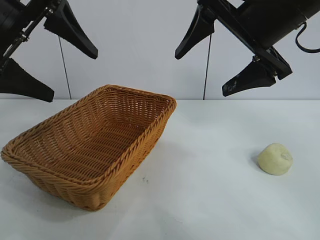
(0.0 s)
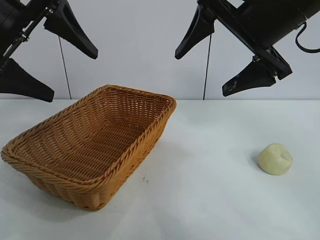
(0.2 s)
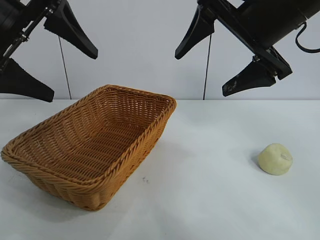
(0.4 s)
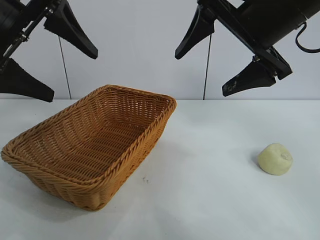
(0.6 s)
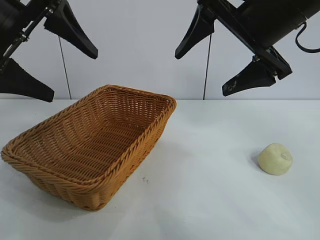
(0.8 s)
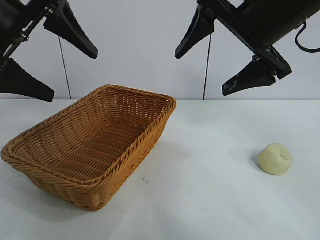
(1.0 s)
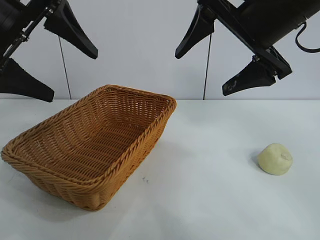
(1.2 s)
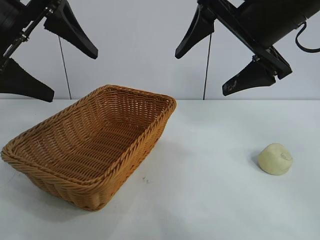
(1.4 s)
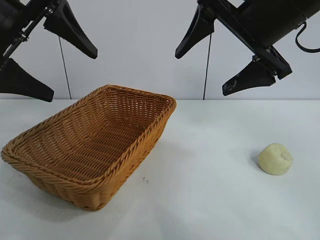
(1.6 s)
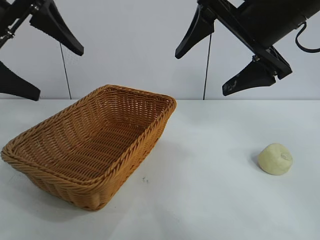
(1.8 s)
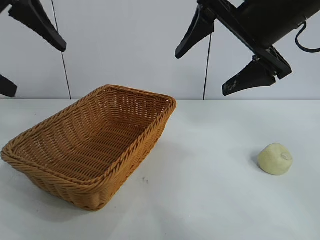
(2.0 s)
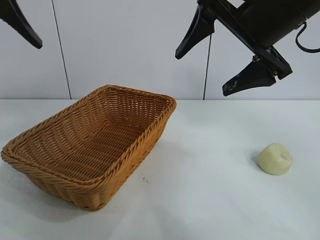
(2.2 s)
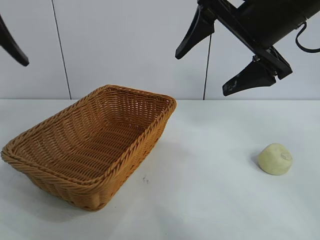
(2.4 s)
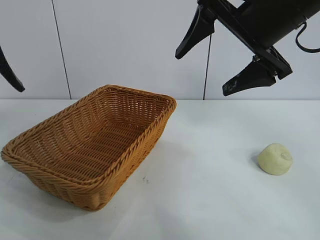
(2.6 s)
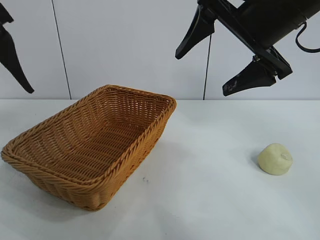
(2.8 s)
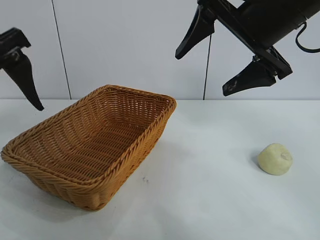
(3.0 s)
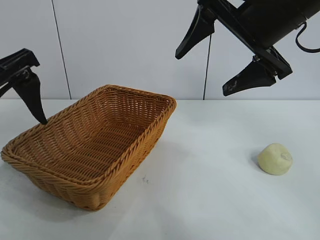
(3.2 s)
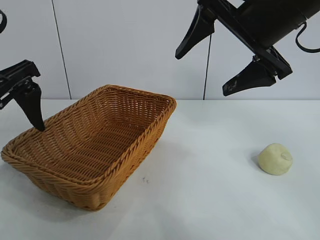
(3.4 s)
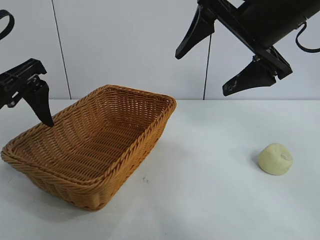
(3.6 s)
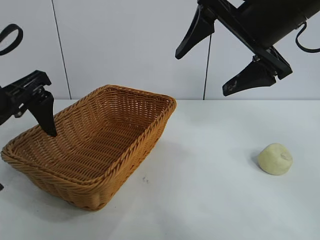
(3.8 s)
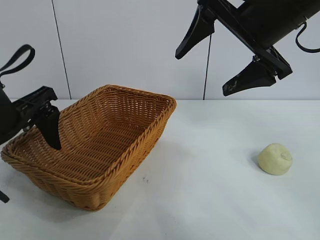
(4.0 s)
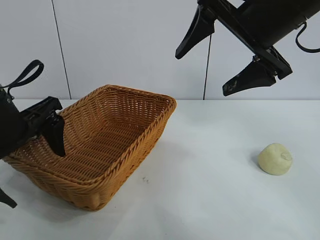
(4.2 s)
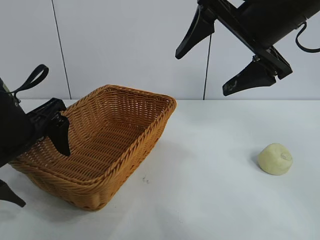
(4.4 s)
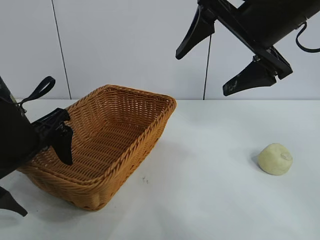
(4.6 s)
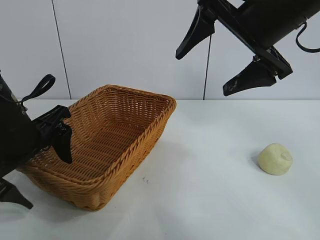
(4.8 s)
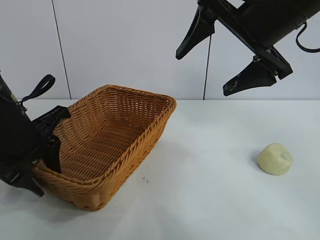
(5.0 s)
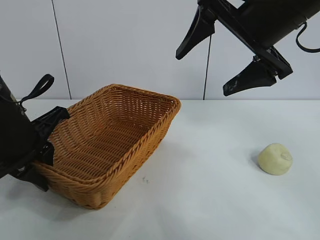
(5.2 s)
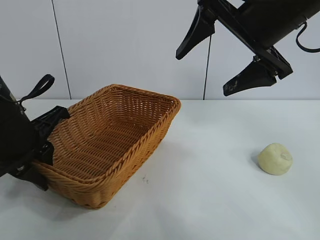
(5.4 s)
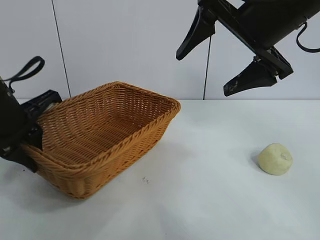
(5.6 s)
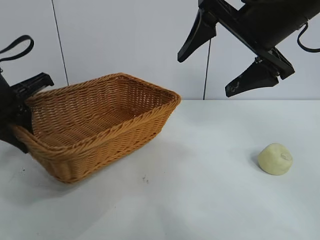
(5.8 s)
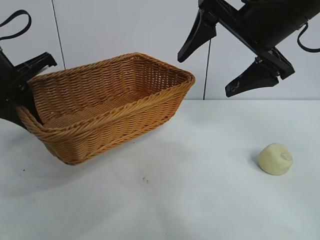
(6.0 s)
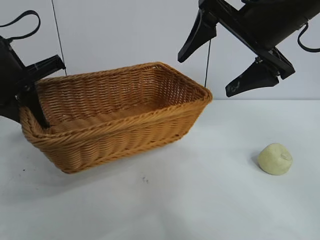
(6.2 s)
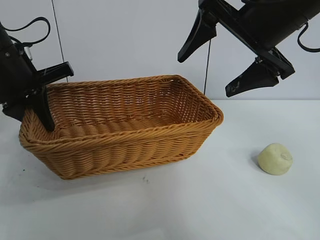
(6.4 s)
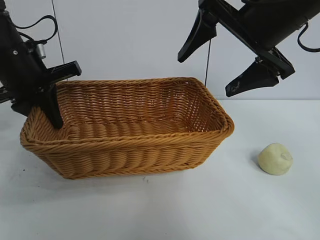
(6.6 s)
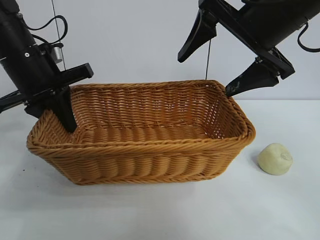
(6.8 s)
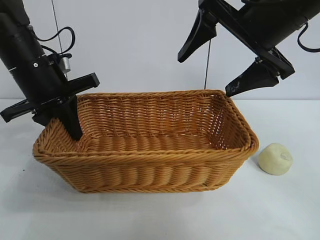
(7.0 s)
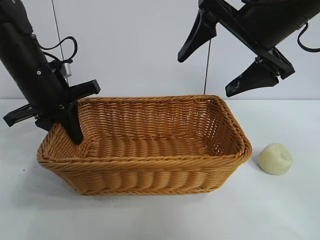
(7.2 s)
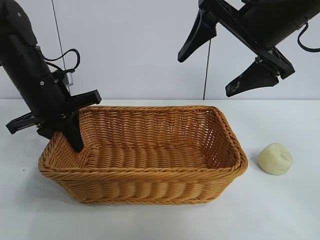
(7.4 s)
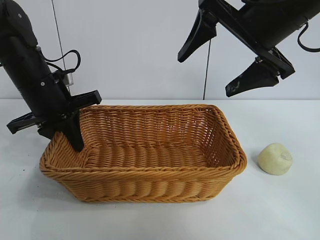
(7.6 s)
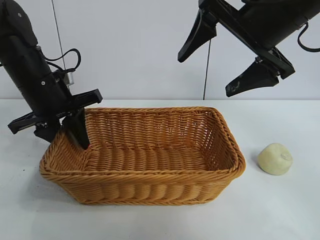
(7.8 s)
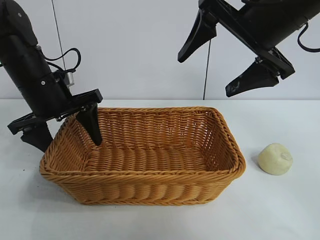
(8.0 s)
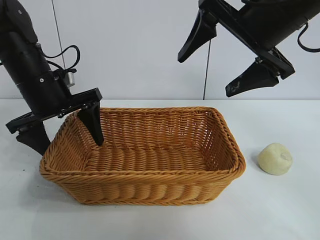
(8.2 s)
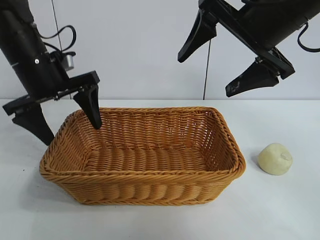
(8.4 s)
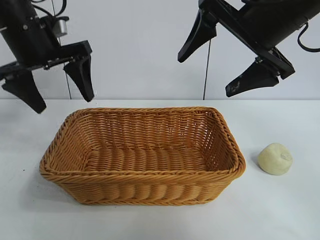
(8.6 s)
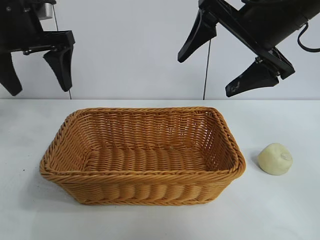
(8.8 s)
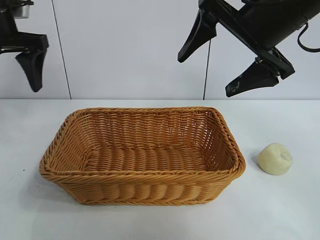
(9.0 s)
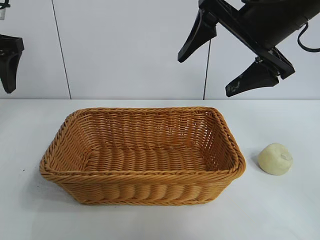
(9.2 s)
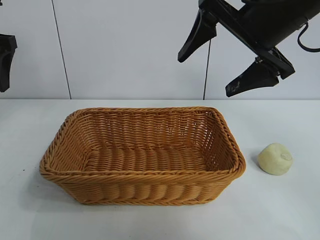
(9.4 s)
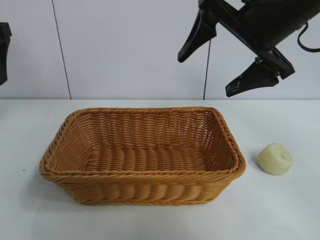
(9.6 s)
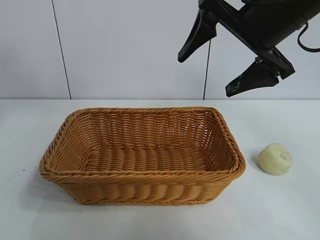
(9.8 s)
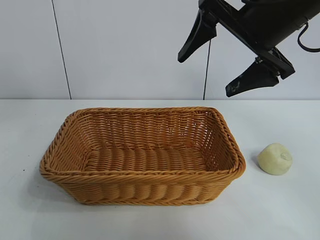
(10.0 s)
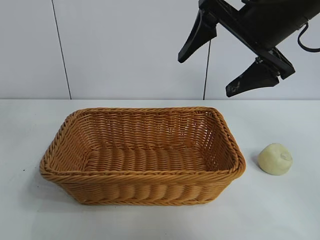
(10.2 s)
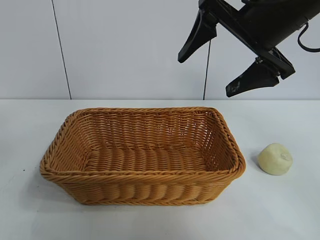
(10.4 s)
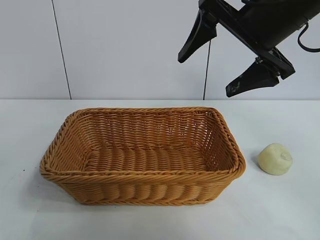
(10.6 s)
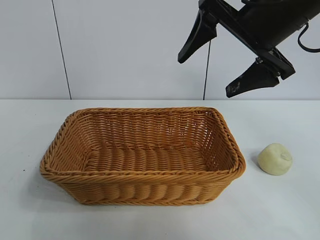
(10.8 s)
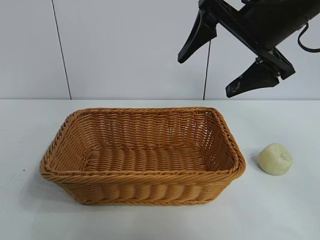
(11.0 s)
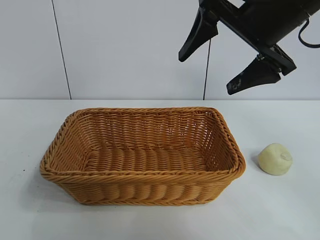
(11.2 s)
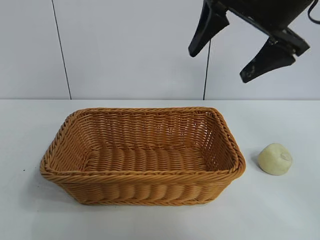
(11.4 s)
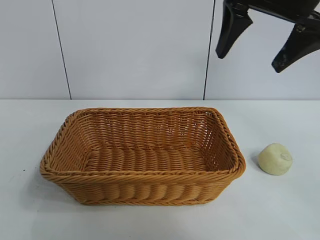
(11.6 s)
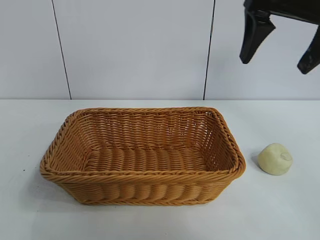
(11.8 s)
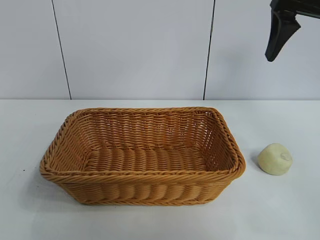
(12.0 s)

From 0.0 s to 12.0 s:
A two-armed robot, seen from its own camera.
Task of the whole recording: pick up the egg yolk pastry and put it into the basket.
Step, from 1.6 s to 5.0 s: Grasp the basket with left gripper.
Step, from 5.4 s to 7.8 s: Place the basket in the center of view with left gripper.

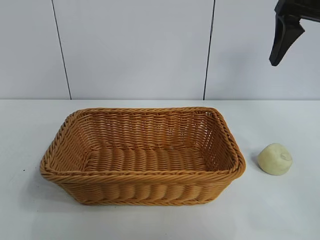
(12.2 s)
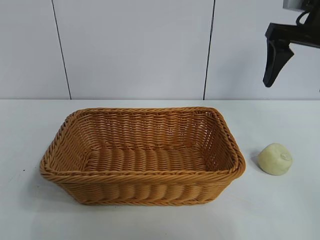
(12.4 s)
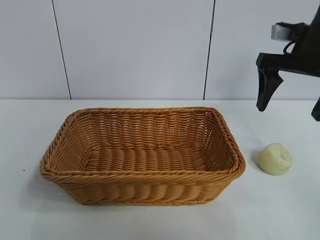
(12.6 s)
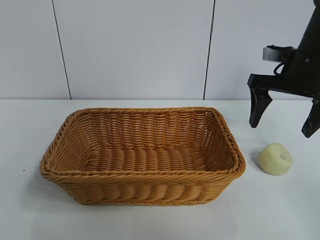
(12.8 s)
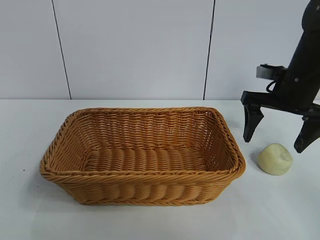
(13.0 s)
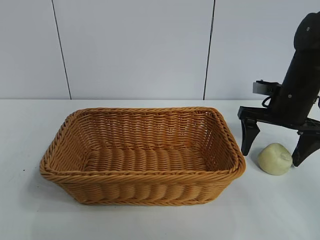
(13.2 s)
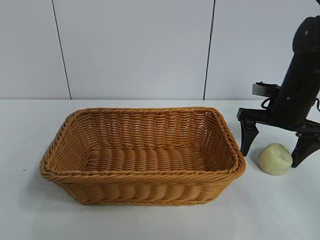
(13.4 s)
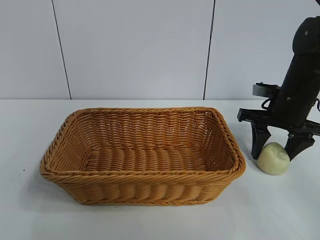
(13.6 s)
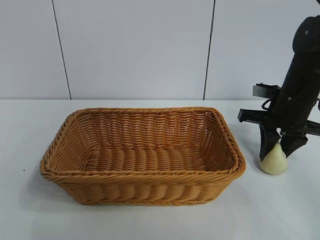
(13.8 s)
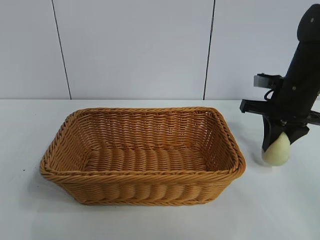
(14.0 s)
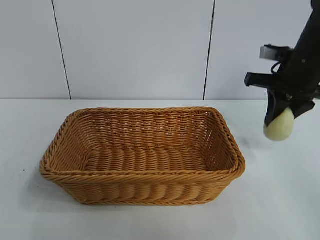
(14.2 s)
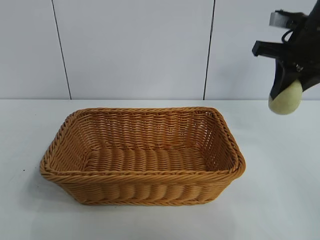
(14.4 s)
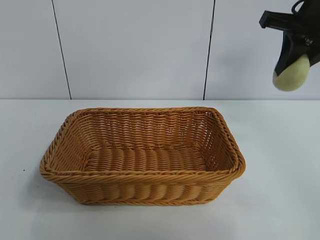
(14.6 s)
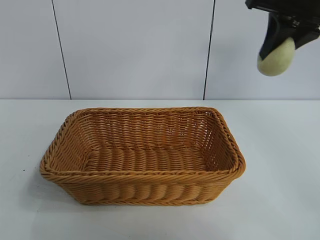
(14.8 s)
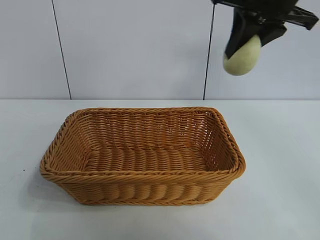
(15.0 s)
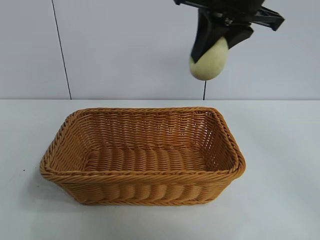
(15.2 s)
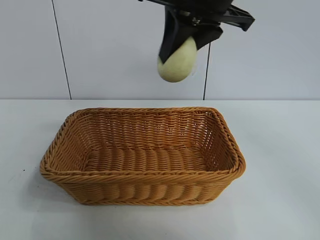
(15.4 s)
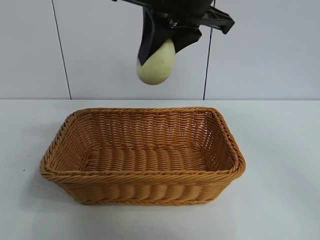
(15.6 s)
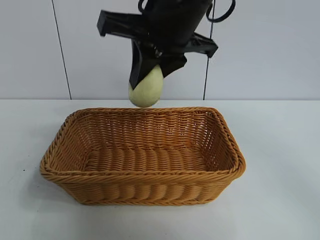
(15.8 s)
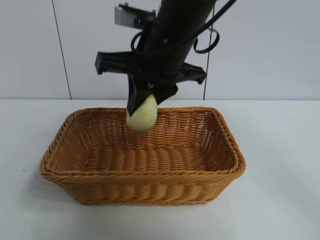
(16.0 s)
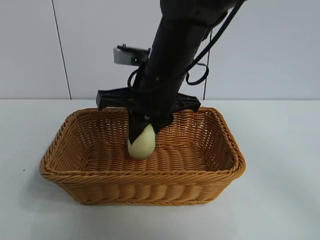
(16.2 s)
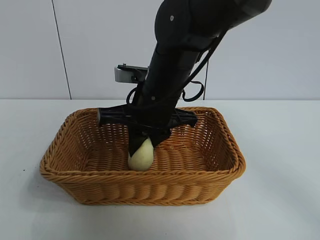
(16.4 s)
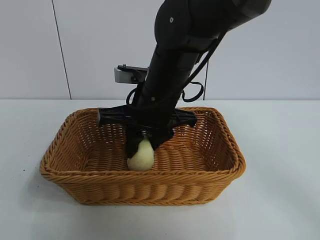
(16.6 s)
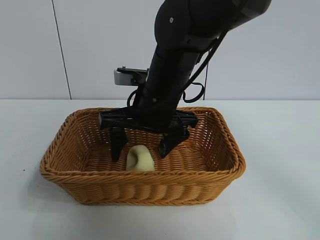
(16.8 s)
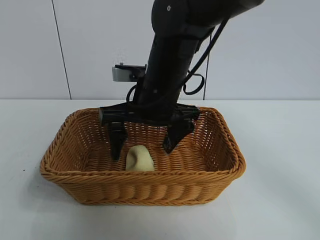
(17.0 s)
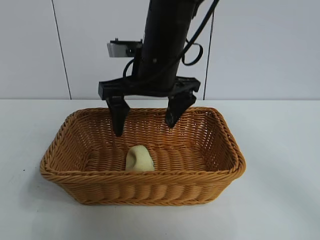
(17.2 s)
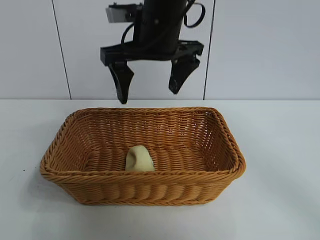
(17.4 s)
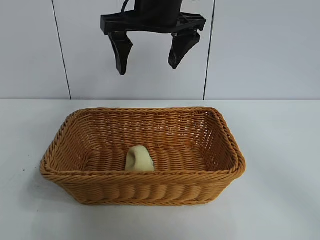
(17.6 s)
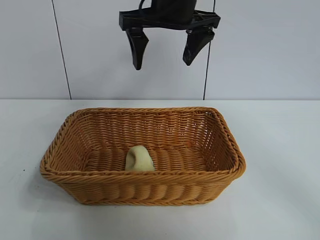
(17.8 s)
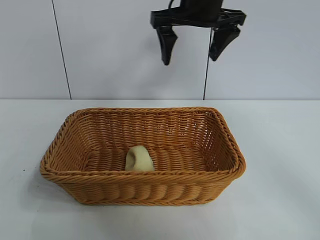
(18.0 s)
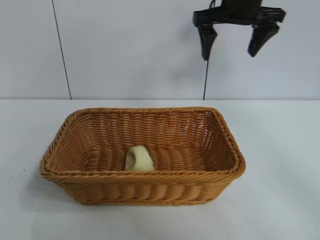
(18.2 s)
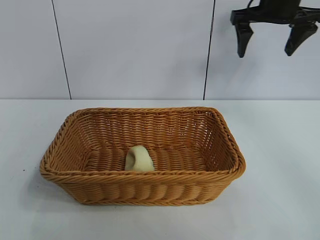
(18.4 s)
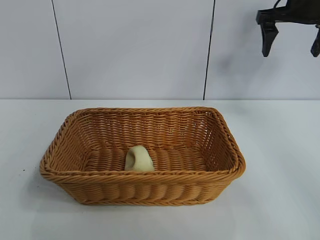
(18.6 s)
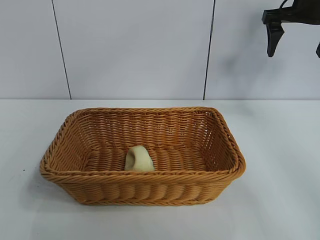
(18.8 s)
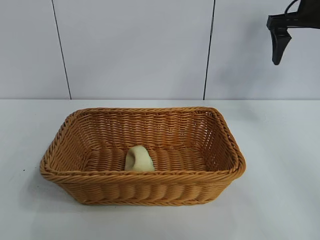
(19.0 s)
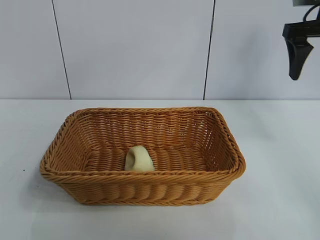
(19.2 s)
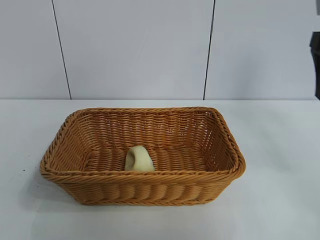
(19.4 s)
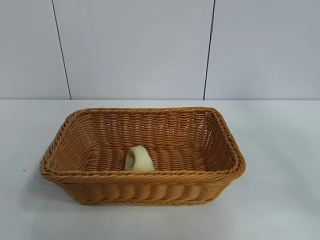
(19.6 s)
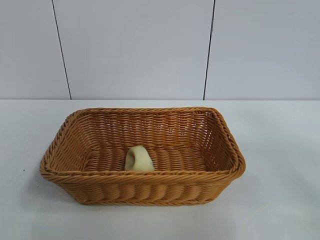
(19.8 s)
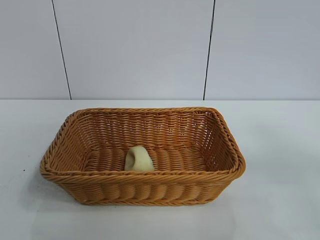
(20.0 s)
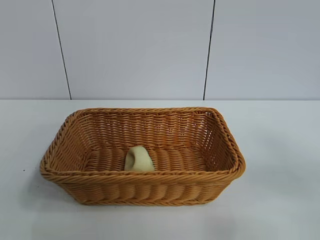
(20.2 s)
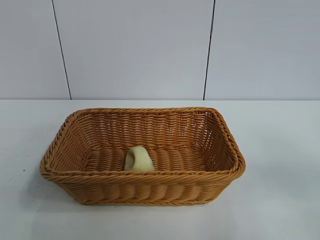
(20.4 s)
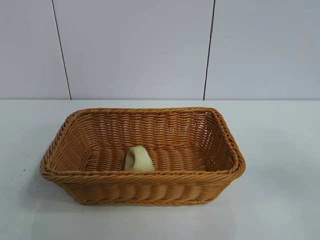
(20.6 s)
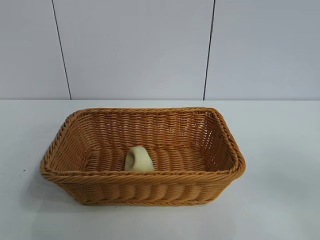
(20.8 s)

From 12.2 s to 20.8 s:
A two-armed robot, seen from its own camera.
Task of the whole recording: pick up the egg yolk pastry and put it into the basket.
Step, from 14.0 s to 16.6 s: Place the egg yolk pastry in the basket with right gripper.

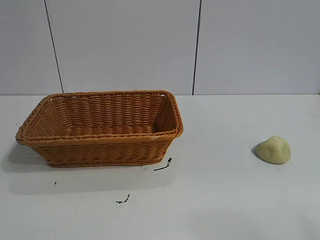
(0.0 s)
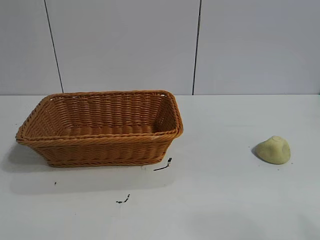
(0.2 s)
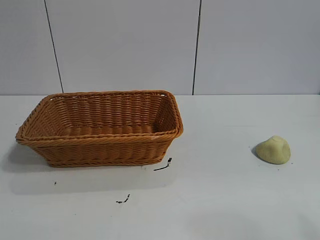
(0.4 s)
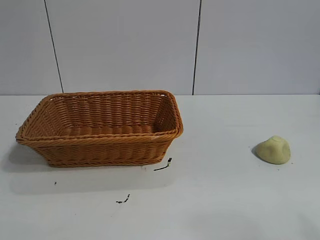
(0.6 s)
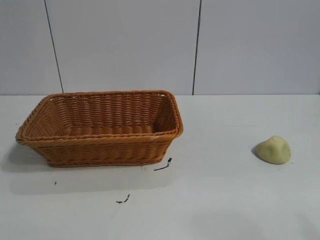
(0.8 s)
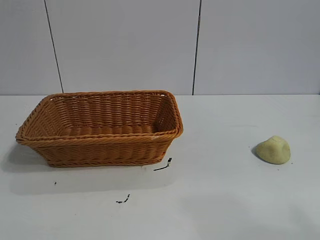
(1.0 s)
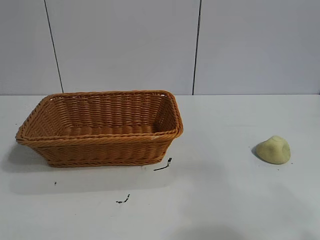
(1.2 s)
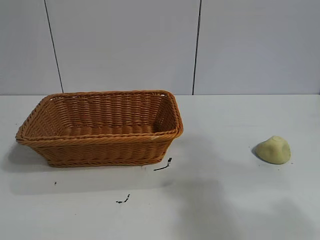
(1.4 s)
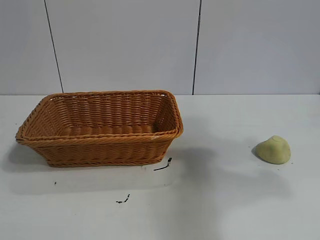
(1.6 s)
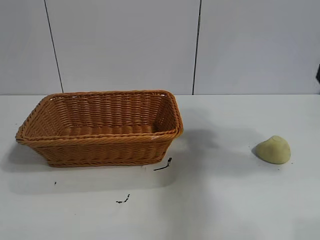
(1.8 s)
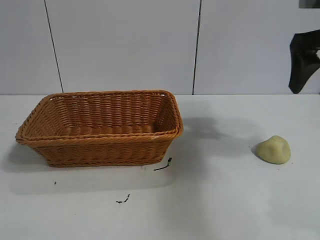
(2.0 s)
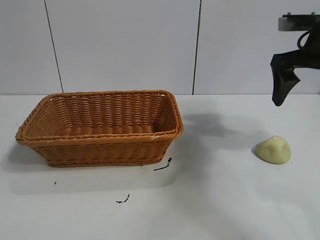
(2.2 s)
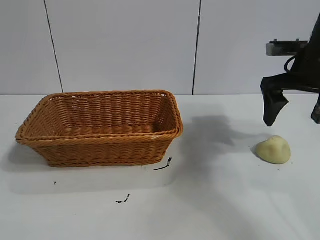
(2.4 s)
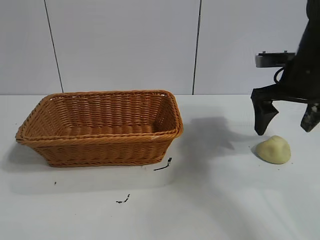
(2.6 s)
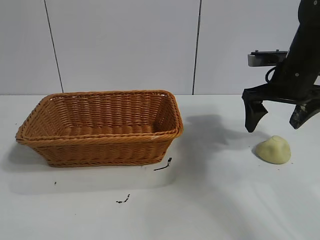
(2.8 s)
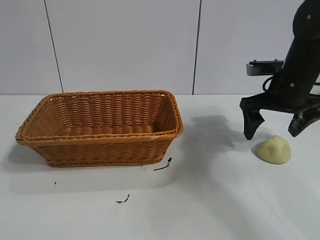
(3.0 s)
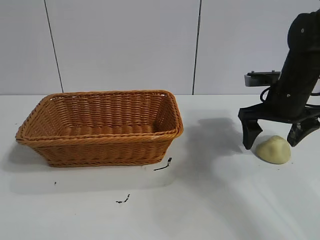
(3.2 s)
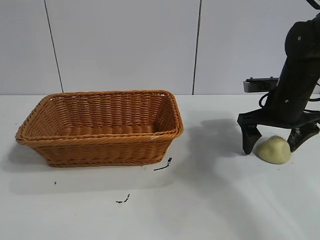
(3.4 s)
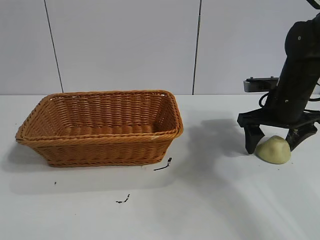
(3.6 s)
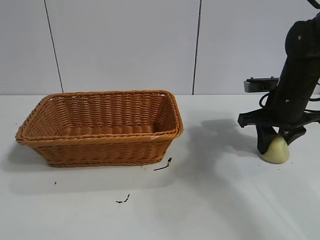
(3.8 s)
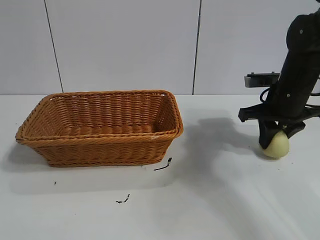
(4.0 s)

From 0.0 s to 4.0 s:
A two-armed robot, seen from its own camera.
Task of the whole recording: pick up the egg yolk pastry and put it into the basket.
Step, from 1.0 s to 3.8 s: Grasp egg yolk pastry with right gripper.
